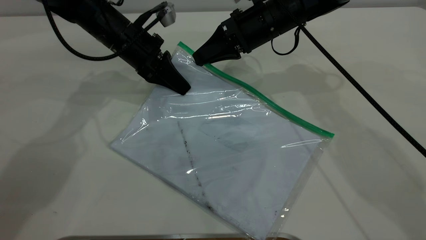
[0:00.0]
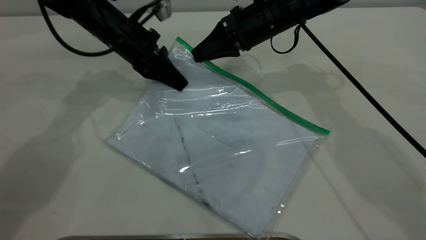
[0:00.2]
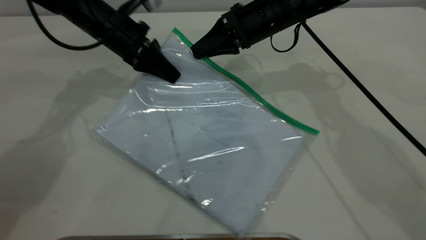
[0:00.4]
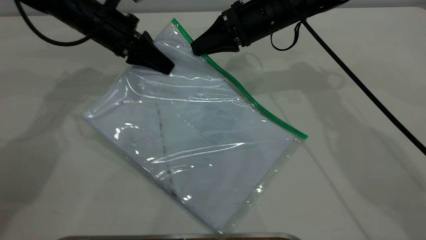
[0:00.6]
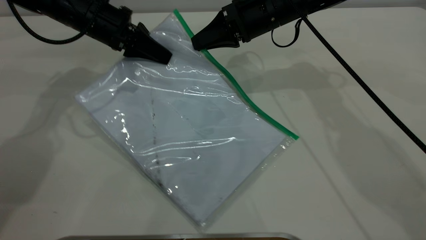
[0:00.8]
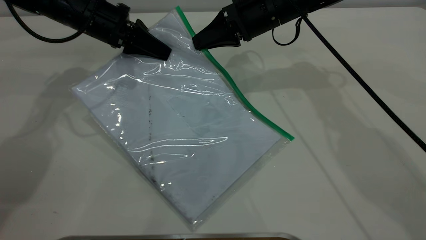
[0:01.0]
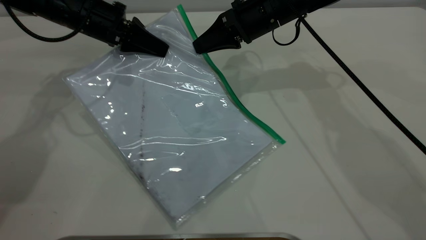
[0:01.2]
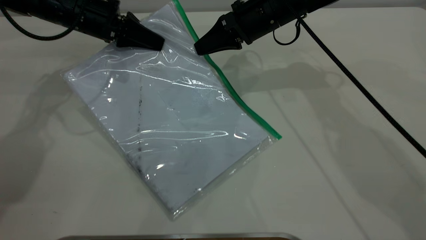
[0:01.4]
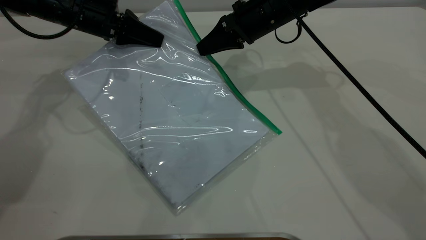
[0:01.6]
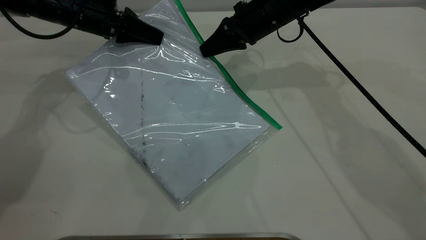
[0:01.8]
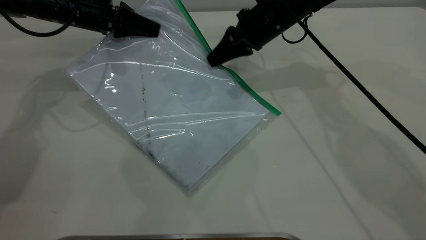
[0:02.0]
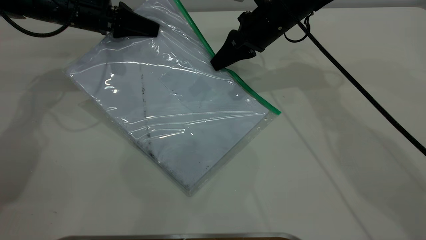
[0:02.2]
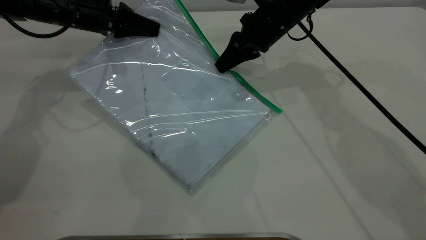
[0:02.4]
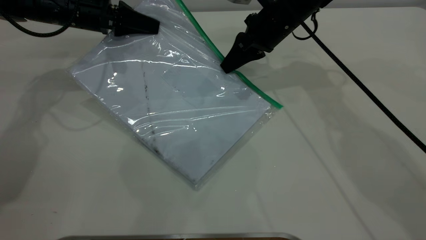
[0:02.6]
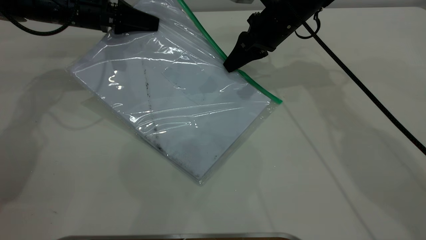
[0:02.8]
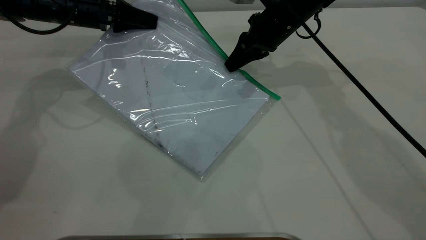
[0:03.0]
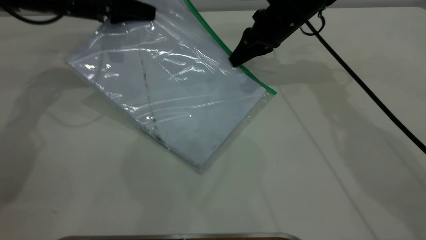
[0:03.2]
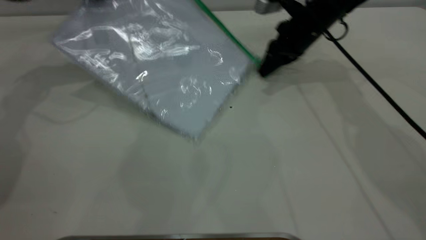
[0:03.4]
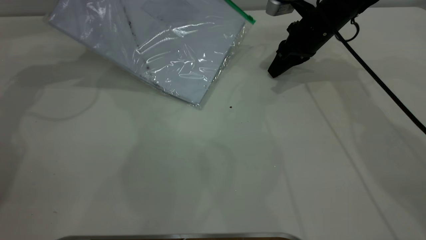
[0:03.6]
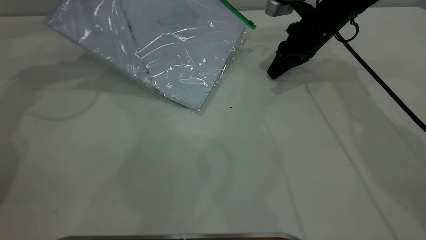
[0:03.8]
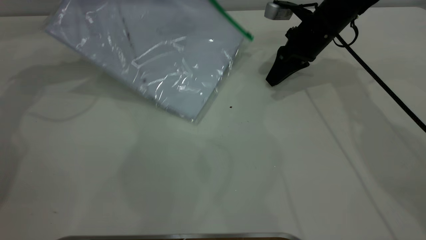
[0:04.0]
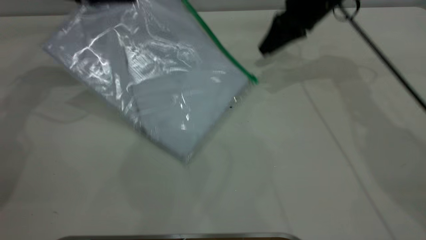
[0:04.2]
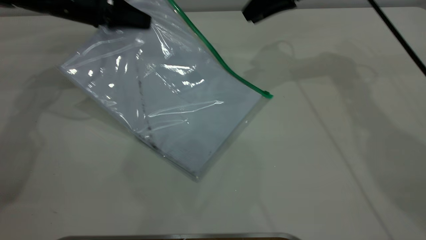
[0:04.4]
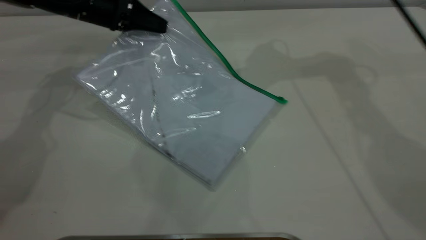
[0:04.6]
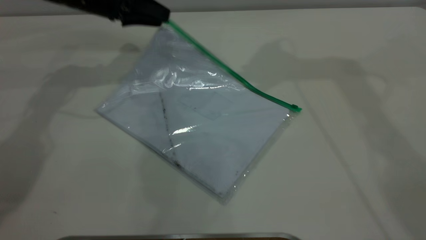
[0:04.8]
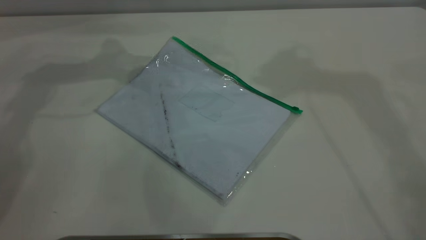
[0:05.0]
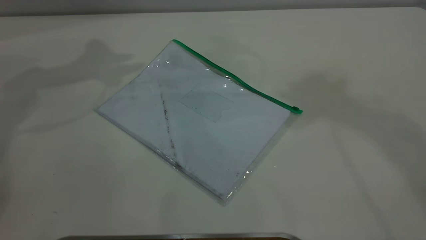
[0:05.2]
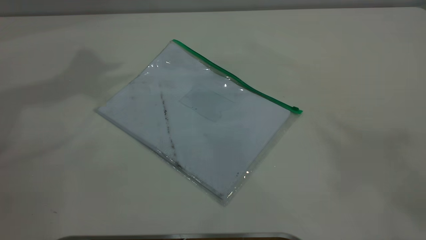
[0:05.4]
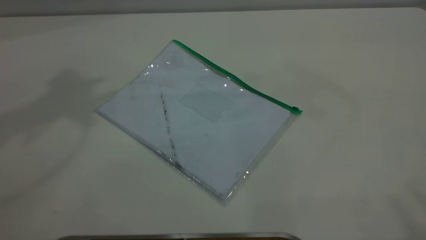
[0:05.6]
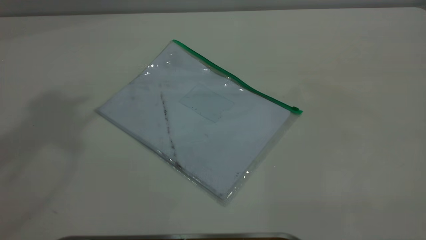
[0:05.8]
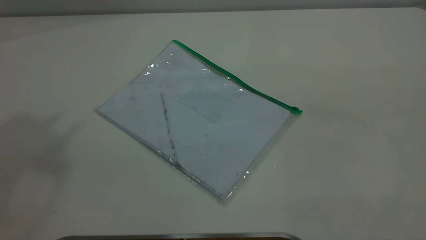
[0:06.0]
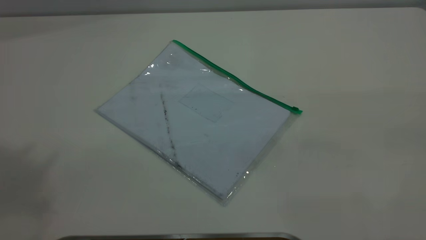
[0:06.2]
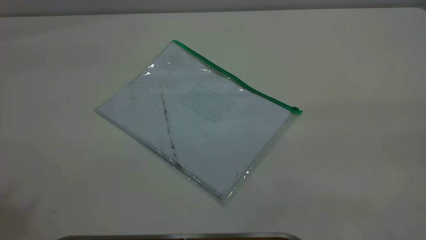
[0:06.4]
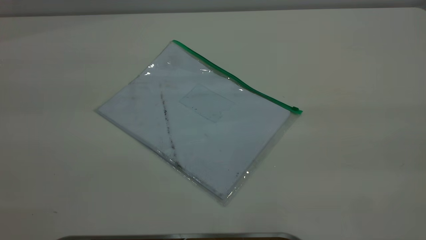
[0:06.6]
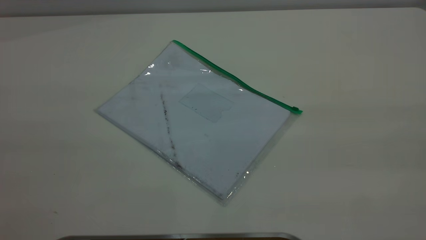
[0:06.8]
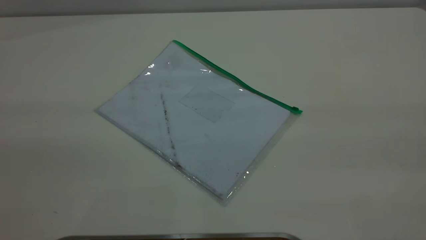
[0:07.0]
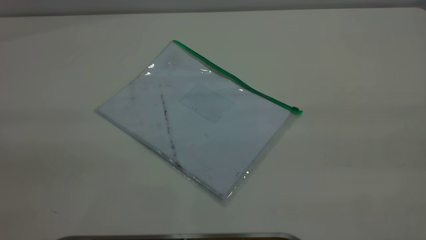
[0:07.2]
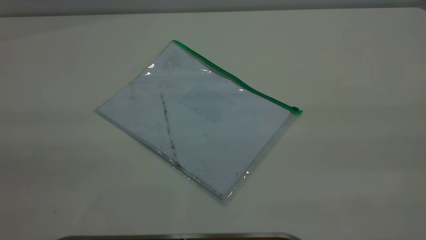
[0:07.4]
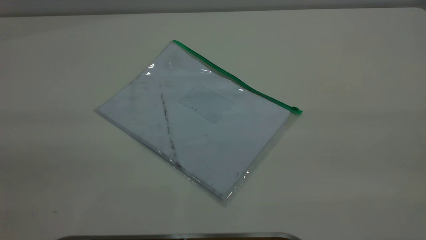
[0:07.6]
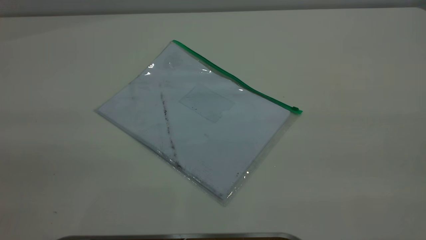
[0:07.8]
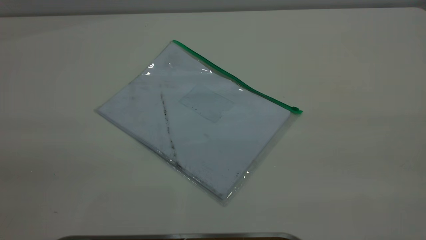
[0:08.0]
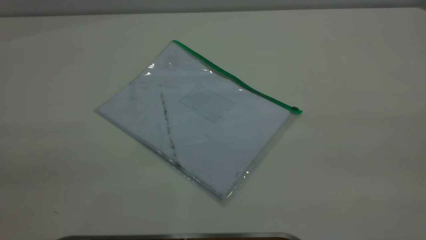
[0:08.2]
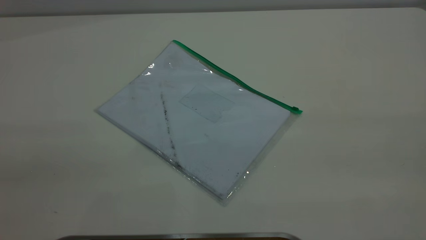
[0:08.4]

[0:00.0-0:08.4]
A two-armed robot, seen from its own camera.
Step, 0:00.0 to 0:04.0: Pulling up the zipper on the transparent plastic bag with the right gripper to close it.
Step, 0:04.2 to 0:04.8: Place the transparent plastic bag.
0:00.0 to 0:01.4: The left gripper goes approximately 5 cm to the left.
0:01.4 to 0:02.8: The grippers move only a little.
0:02.8 to 0:04.2: The right gripper heads upward and to the right, covering some 5 cm, and opens.
0:04.2 to 0:05.6: The left gripper shifts some 40 cm upward, and opens its fingers; the right gripper goes roughly 60 cm upward and backward.
